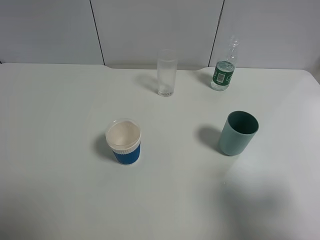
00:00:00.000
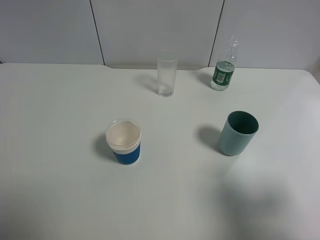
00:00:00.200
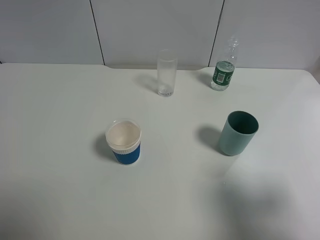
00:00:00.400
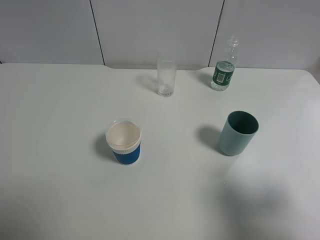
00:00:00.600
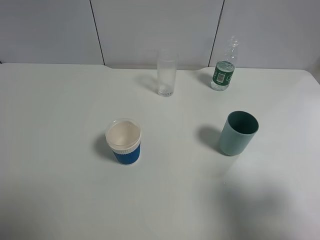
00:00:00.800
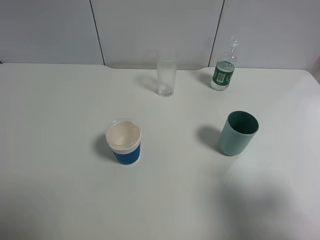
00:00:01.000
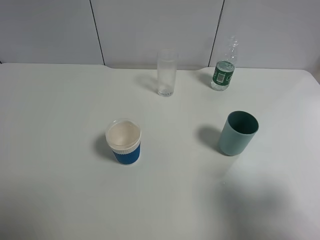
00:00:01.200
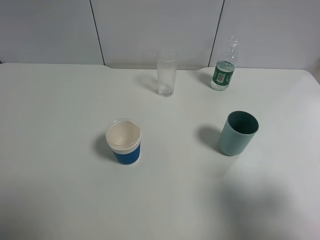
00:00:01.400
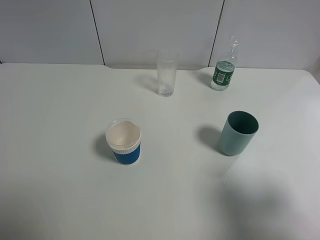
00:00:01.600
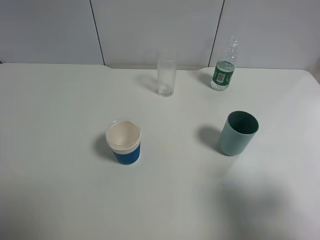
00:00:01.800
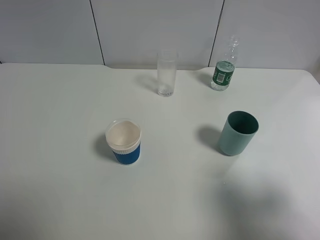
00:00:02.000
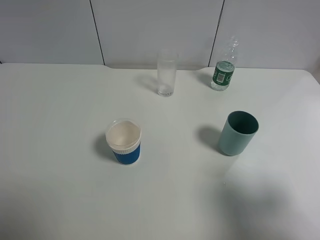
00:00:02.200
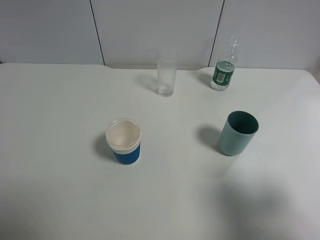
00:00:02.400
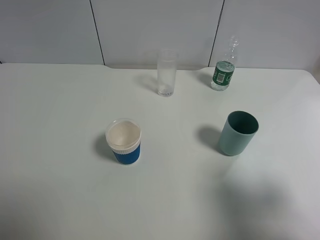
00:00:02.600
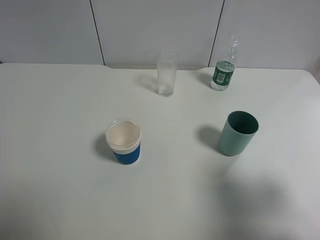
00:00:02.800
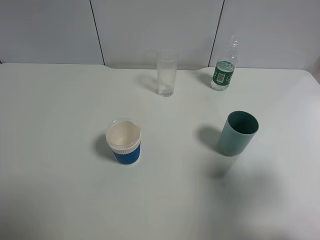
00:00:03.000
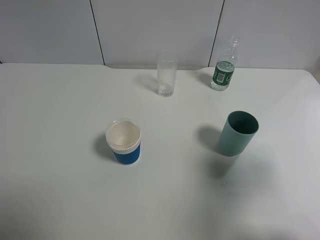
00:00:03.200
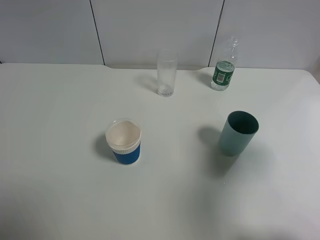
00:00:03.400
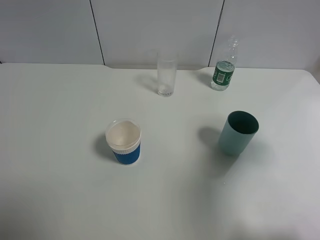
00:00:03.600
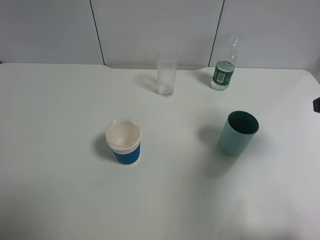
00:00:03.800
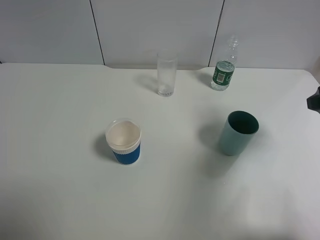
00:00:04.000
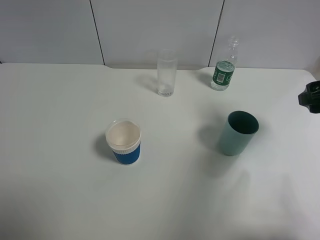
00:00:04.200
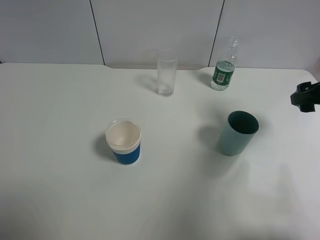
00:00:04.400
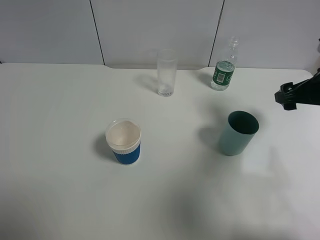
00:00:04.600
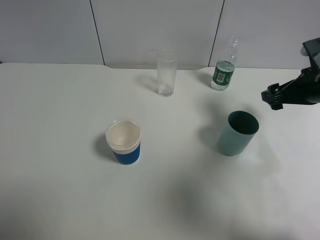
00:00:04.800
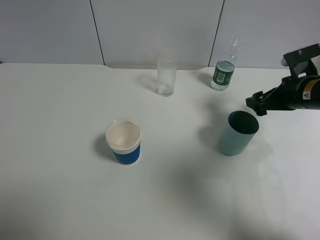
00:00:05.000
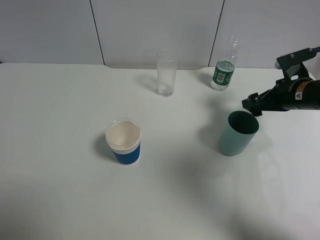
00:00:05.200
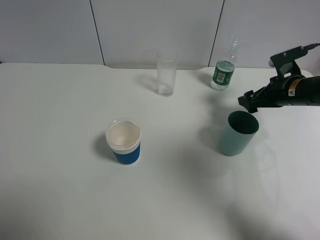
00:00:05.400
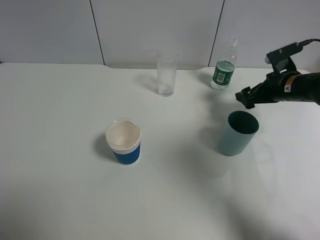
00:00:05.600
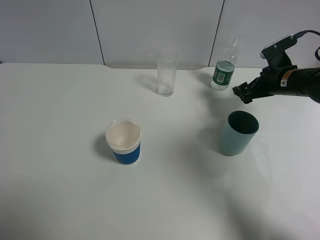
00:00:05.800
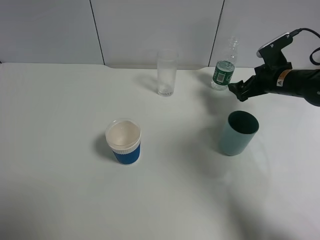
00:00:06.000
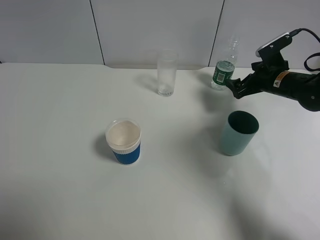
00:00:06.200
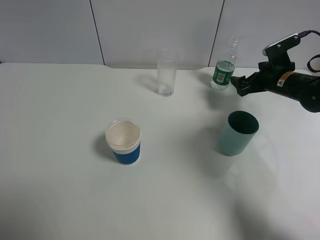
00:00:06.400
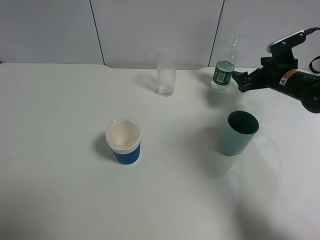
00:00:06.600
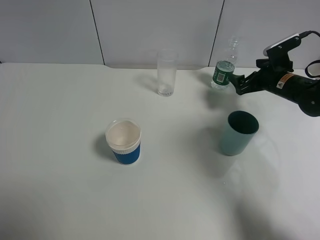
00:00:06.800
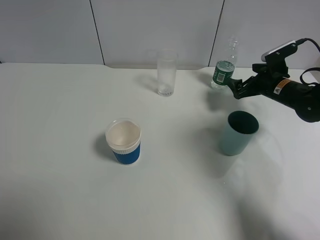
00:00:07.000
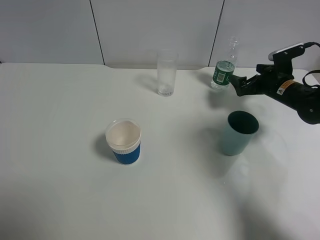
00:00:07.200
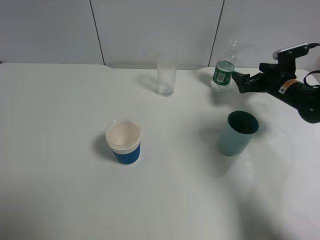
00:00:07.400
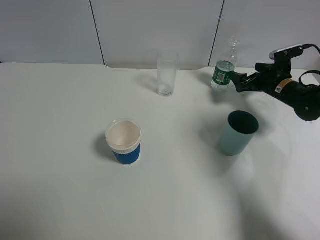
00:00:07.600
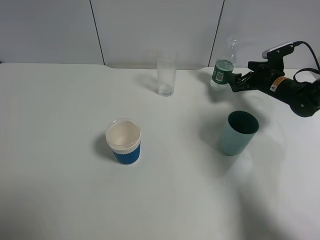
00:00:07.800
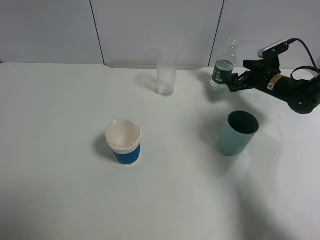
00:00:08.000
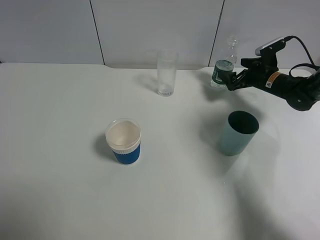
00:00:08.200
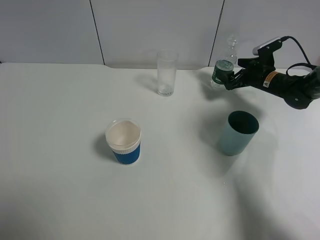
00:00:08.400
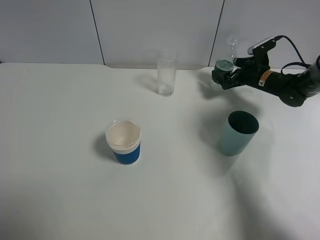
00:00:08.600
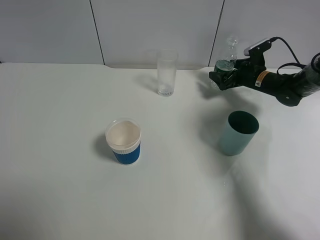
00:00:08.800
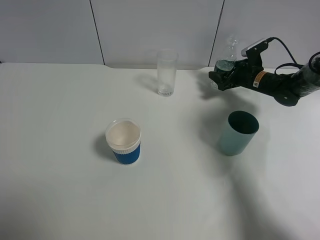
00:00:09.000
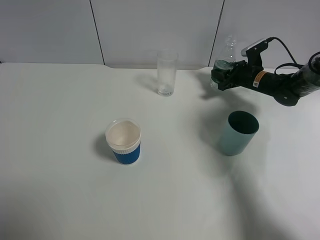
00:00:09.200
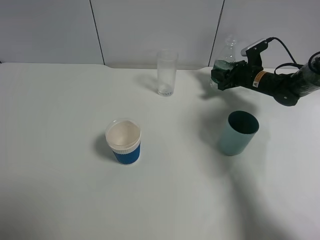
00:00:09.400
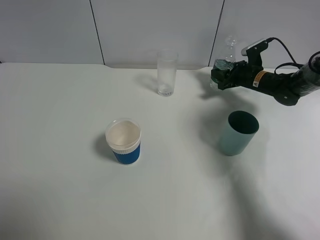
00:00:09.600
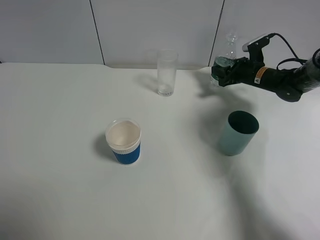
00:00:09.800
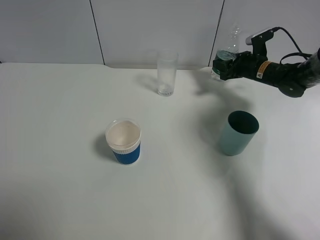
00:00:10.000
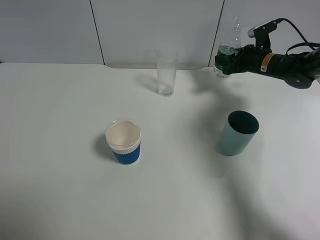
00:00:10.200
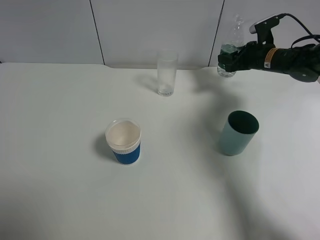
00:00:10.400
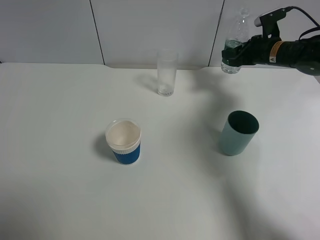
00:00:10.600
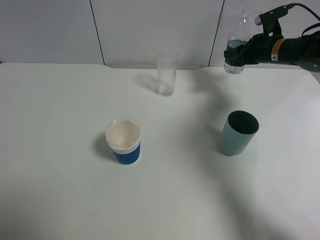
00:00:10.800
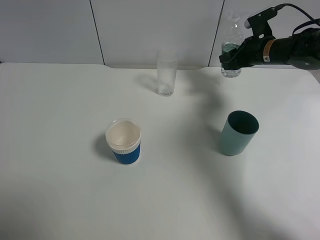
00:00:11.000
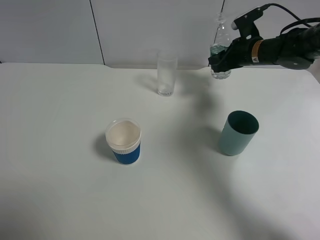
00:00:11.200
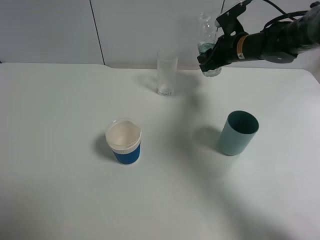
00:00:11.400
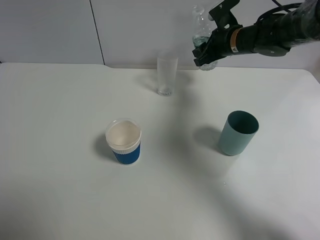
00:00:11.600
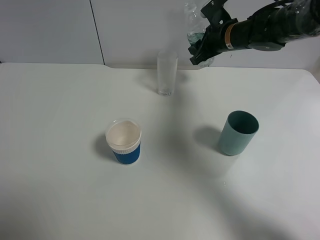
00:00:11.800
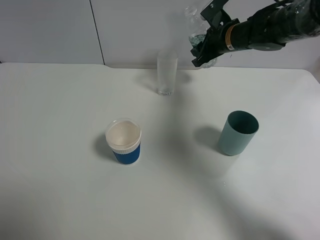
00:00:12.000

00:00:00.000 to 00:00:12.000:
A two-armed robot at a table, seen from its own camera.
Task of the whole recording: use a gripper to hold the bottle of the drink and pour it into a random cup.
Step, 00:00:00.000 to 00:00:09.200: Grasp the mineral water bottle with the right gripper.
00:00:00.000 to 00:00:01.600: Both grippers stay put.
00:00:01.600 to 00:00:03.000: The right gripper is displaced forward by about 5 cm.
00:00:03.000 to 00:00:04.400: The right gripper goes roughly 20 cm forward.
00:00:04.400 to 00:00:06.000: The right gripper heads forward and downward, covering approximately 15 cm.
00:00:06.000 to 00:00:07.600: The right gripper ends up approximately 5 cm from where it was.
00:00:07.600 to 00:00:09.000: The right gripper moves forward, about 5 cm, and closes its fingers.
00:00:09.000 to 00:00:10.400: The right gripper travels upward by approximately 5 cm, and closes.
00:00:10.400 to 00:00:12.000: The right gripper goes roughly 15 cm to the left and upward.

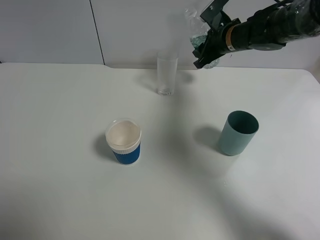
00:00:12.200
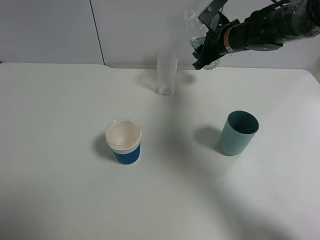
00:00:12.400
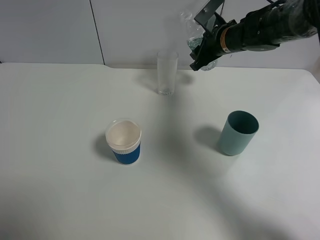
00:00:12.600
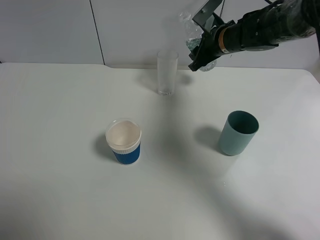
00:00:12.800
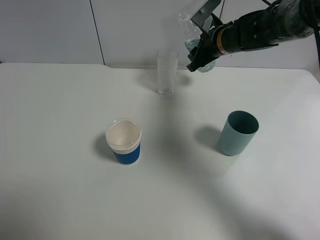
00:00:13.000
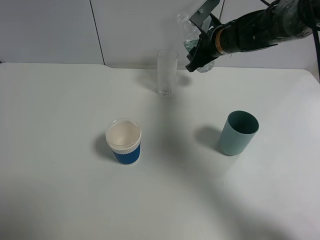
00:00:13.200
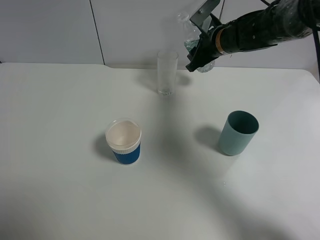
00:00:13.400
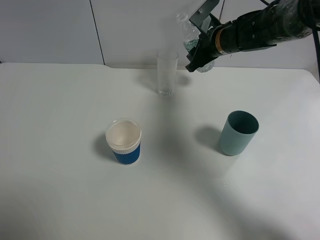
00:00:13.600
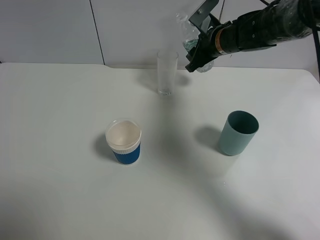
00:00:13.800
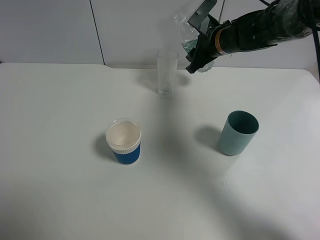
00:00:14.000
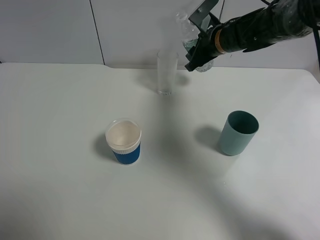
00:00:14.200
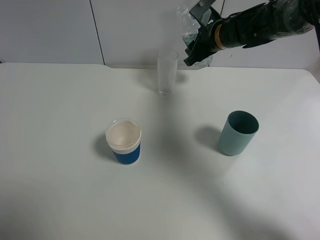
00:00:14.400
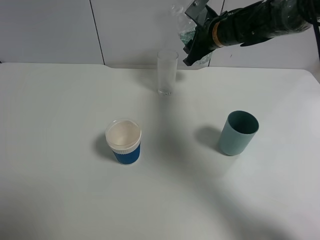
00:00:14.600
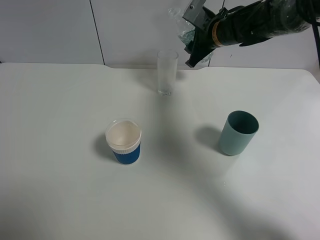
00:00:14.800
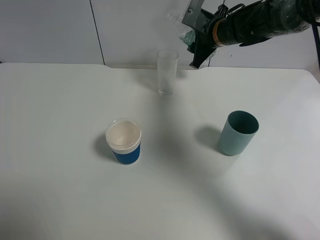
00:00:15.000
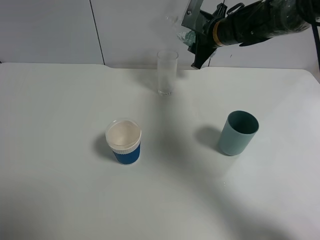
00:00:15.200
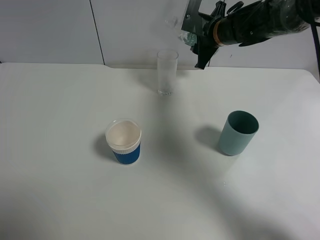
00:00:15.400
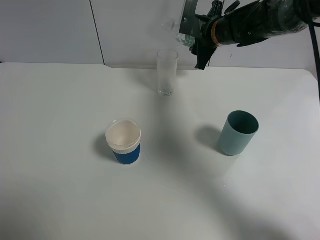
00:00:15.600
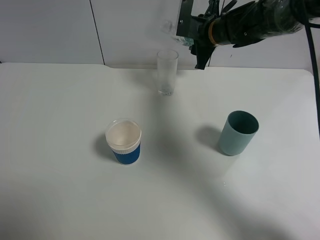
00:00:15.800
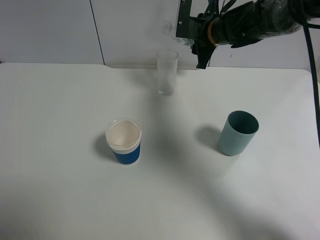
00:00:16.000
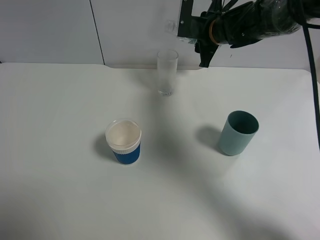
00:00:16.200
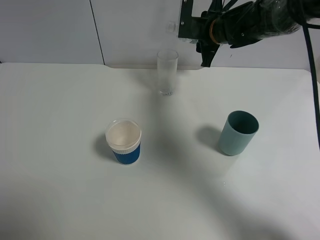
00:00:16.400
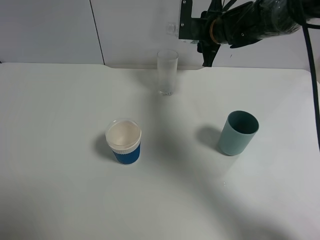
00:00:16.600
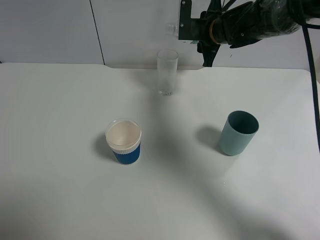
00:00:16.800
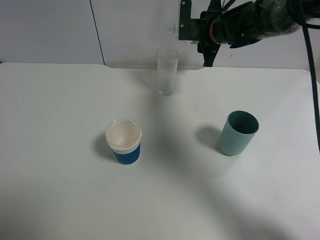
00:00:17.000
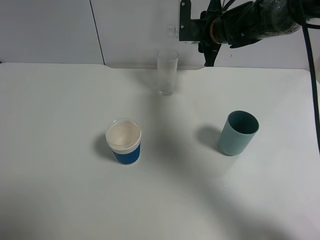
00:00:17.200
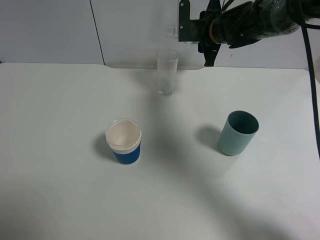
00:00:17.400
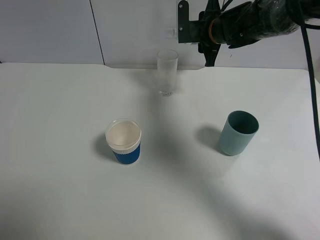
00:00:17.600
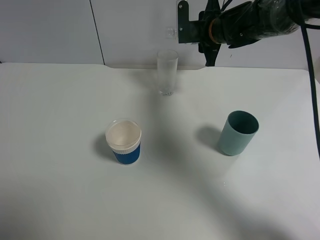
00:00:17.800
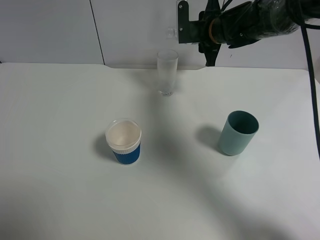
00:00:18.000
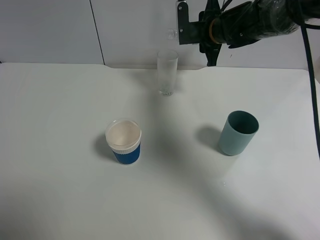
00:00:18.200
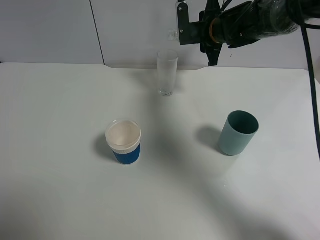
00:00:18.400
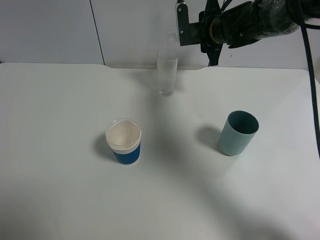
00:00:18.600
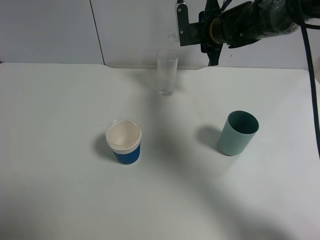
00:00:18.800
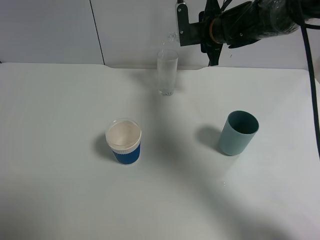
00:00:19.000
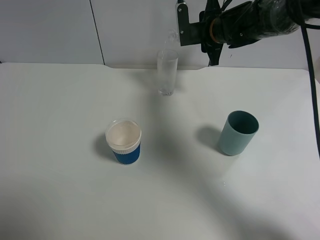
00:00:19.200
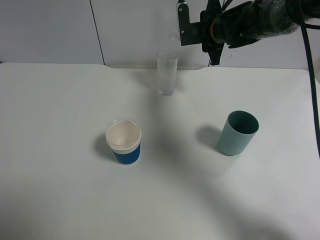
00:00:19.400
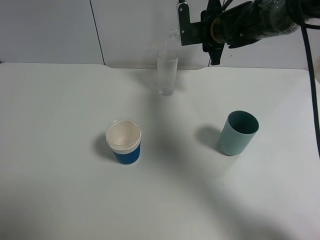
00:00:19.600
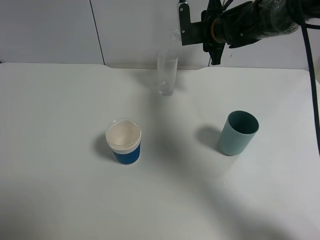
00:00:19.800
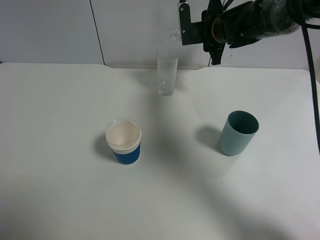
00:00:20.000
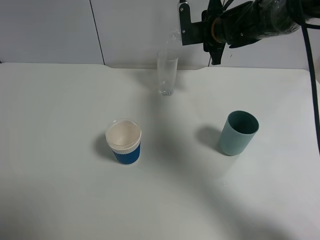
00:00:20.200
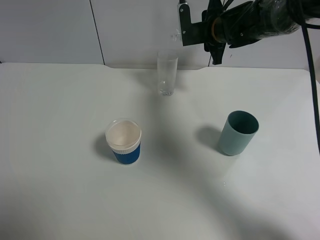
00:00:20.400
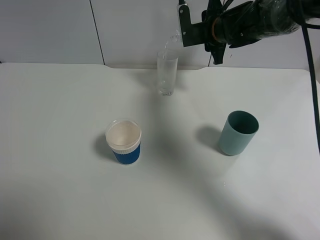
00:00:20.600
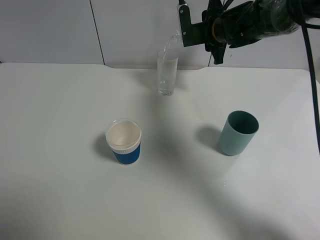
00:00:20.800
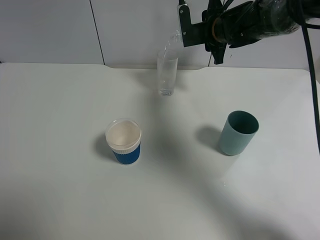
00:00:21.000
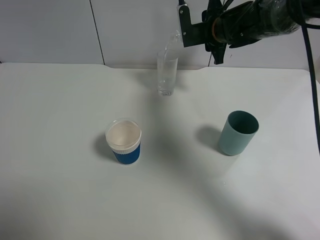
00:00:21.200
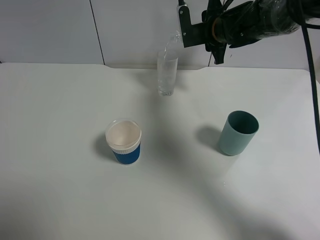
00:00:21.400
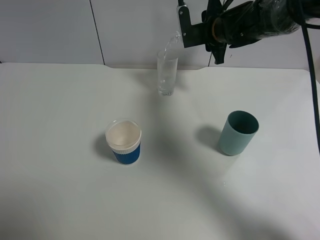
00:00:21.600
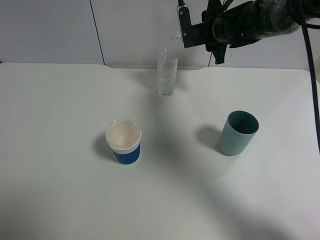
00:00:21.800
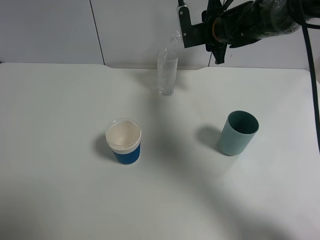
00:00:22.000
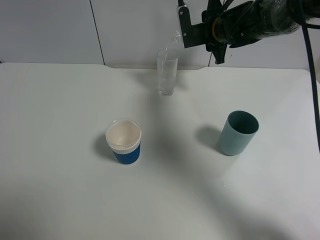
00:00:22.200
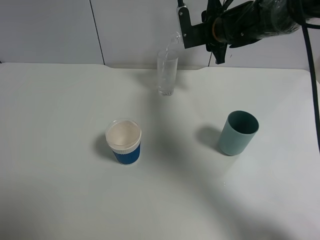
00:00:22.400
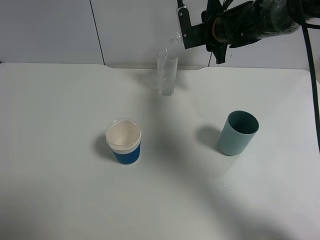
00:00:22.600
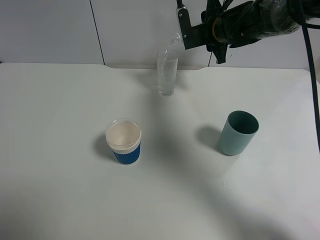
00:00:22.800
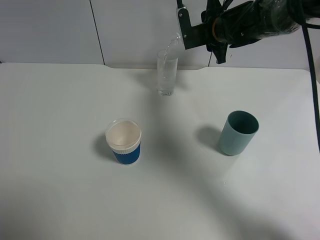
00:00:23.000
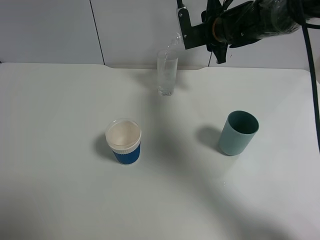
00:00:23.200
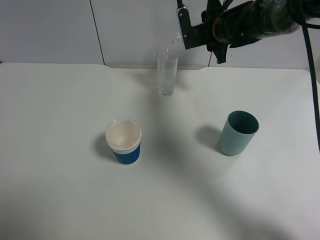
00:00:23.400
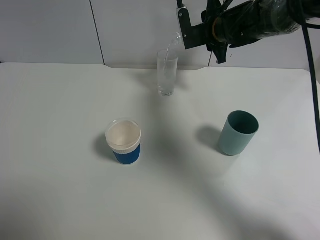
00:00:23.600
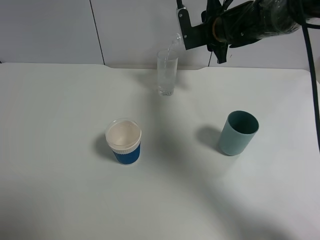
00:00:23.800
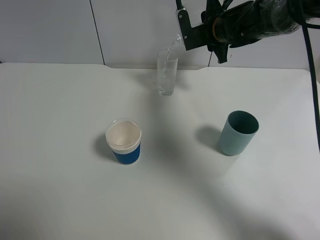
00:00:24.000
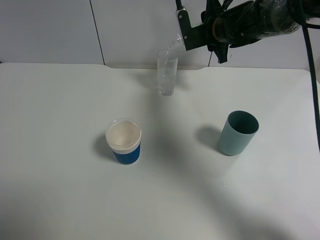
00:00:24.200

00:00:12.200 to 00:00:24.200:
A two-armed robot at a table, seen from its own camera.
Task of the whole recording: use a gripper to hold the bottle of the drink and pour it into a random cup.
00:00:12.200 to 00:00:13.800: The grippers move only a little.
00:00:16.600 to 00:00:18.200: The grippers make only small movements.
00:00:18.200 to 00:00:19.800: Both grippers stay about where they are.
00:00:19.800 to 00:00:21.200: Both grippers stay put.
00:00:21.200 to 00:00:22.600: Both grippers stay put.
00:00:22.600 to 00:00:24.200: Neither gripper changes place.
